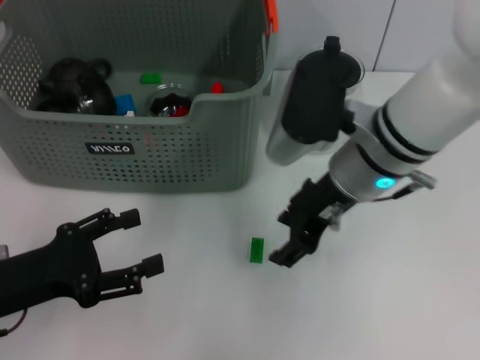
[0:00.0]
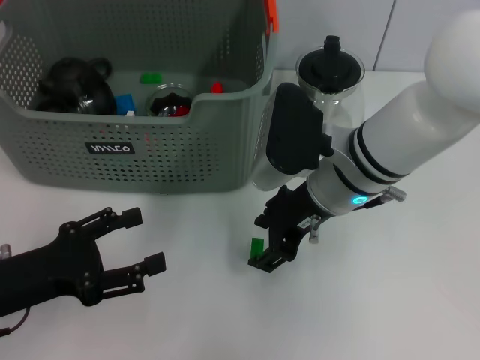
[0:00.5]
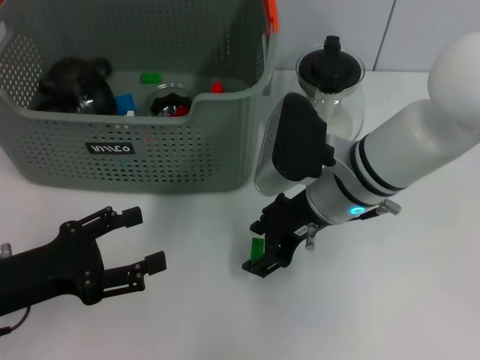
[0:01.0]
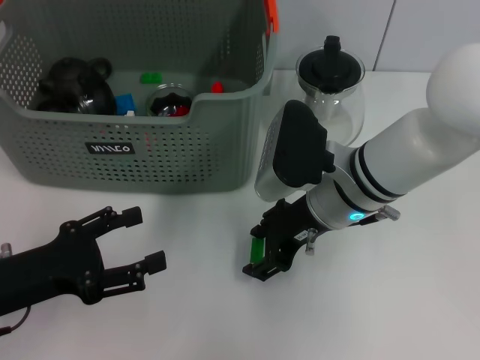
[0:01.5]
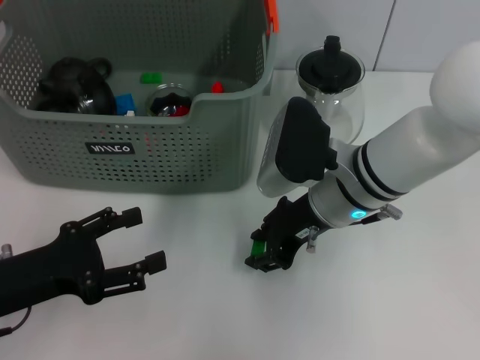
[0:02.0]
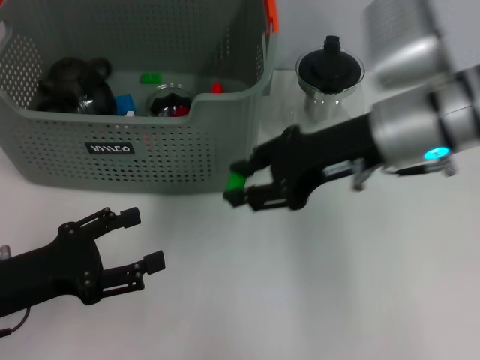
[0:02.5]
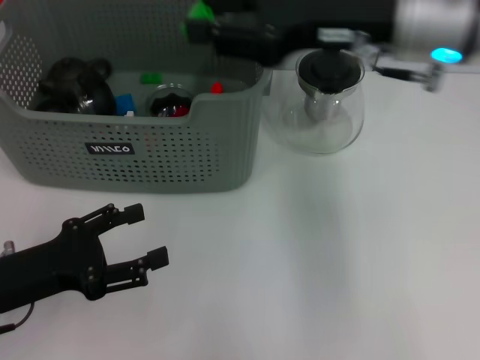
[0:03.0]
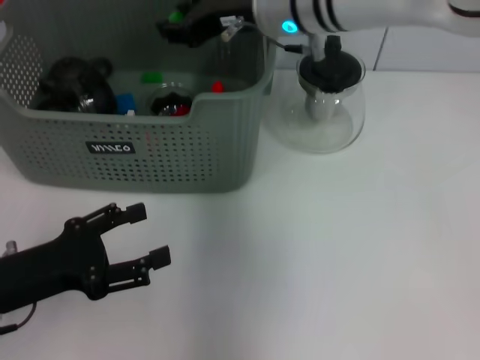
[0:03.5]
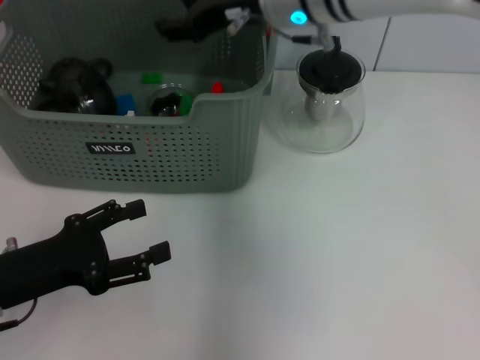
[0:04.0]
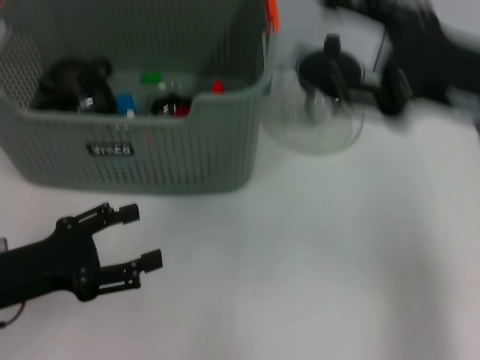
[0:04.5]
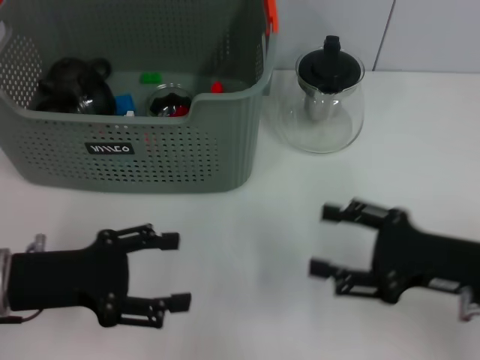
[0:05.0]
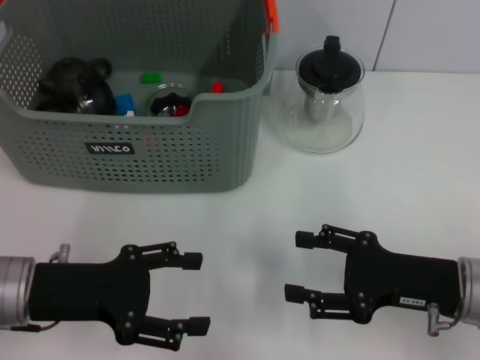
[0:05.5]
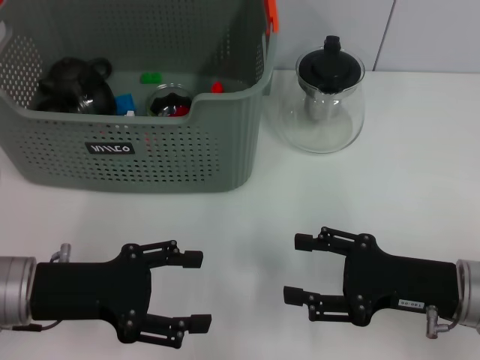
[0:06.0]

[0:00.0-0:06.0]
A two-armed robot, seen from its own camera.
Task of the whole recording: pick up the teacup on the table and place it into the storage bin, pick up the block on the table and place it into the storage bin.
Step, 0:02.5 to 0:04.0: Place the green block in the storage box with right gripper.
0:00.0 to 0:02.0: The right gripper heads downward, covering roughly 5 cm.
0:02.0 to 0:04.0: The right gripper moves upward and forward, some 15 cm.
0:04.0 to 0:06.0: The right gripper heads backward, to the right and downward, covering roughly 30 cm, and opens up.

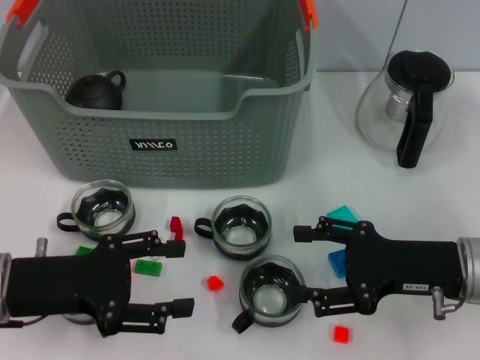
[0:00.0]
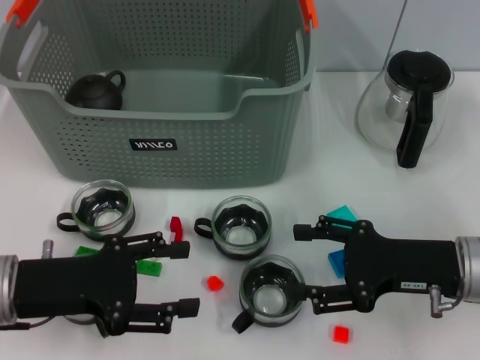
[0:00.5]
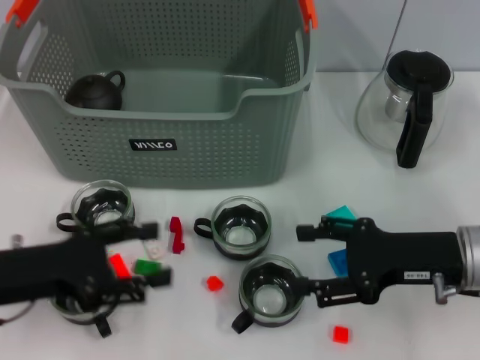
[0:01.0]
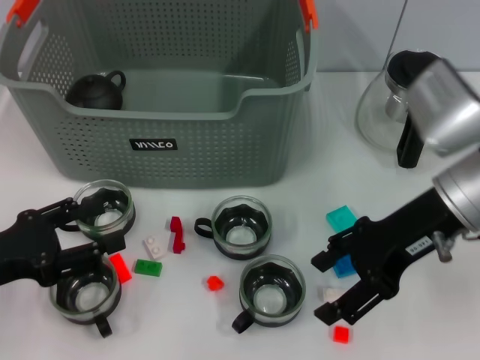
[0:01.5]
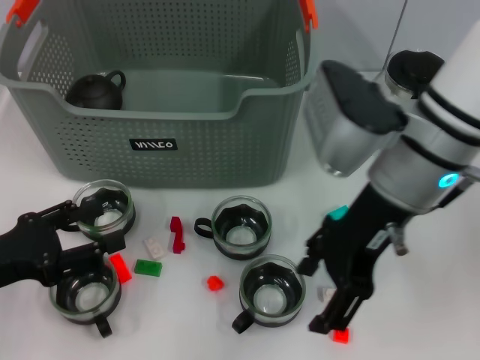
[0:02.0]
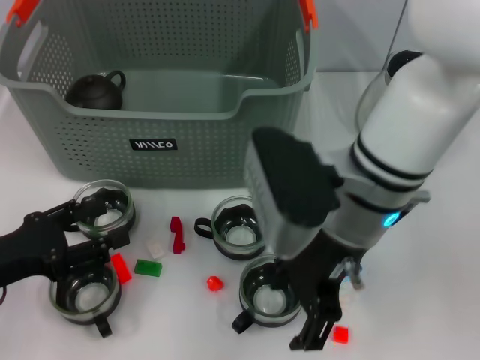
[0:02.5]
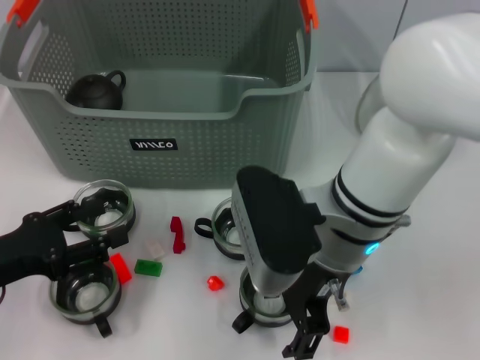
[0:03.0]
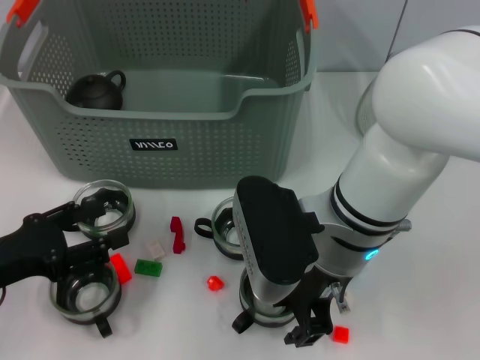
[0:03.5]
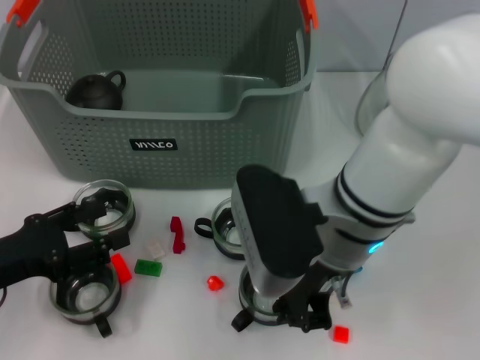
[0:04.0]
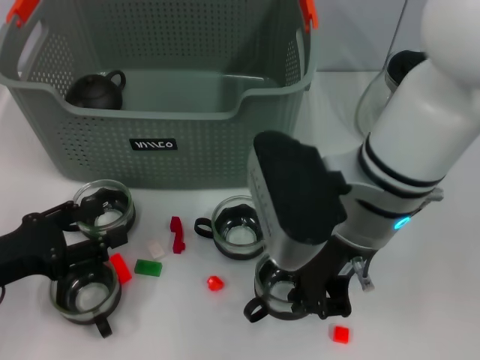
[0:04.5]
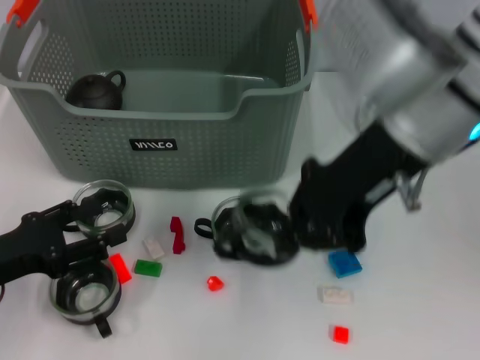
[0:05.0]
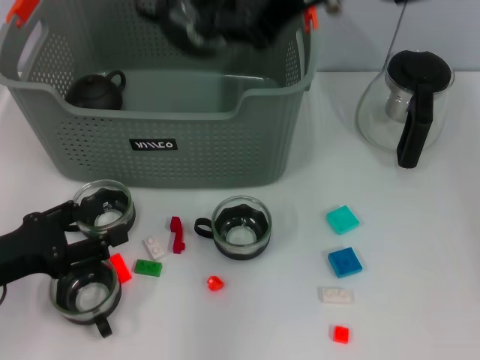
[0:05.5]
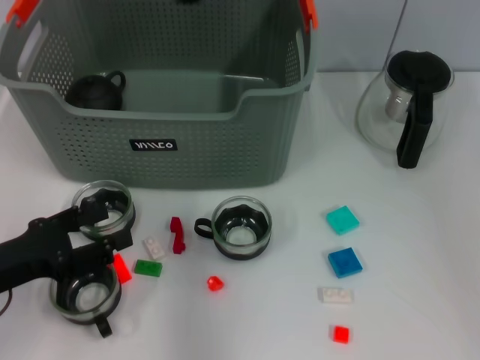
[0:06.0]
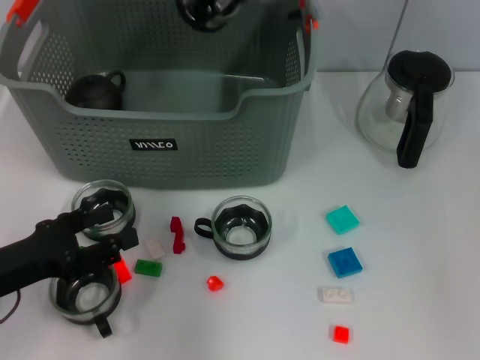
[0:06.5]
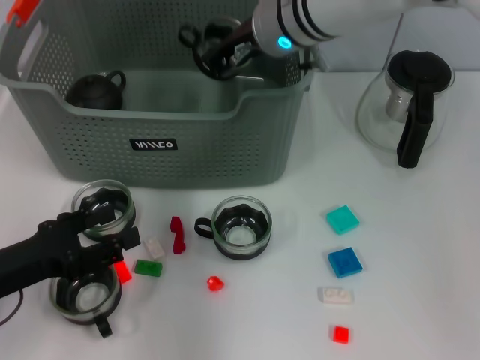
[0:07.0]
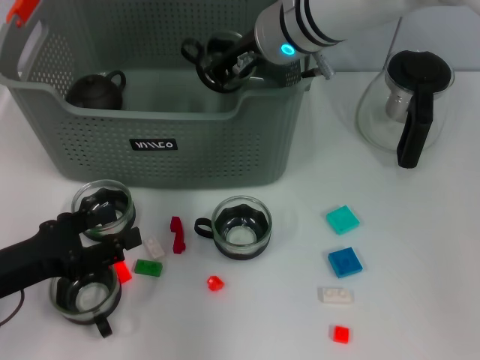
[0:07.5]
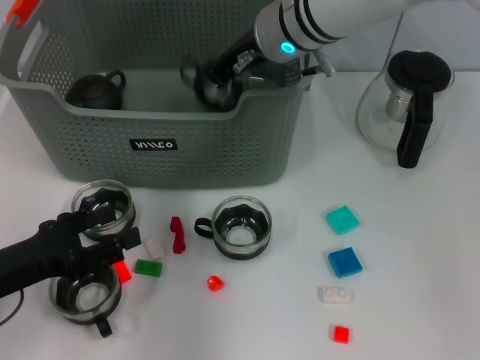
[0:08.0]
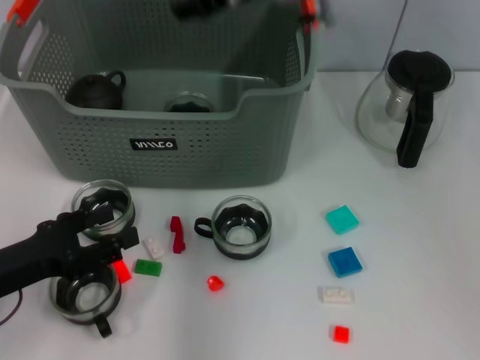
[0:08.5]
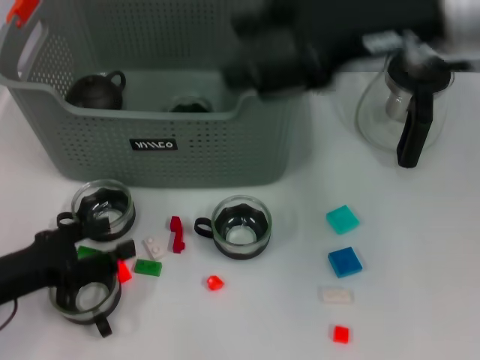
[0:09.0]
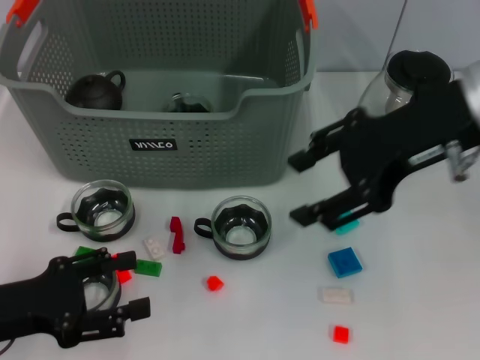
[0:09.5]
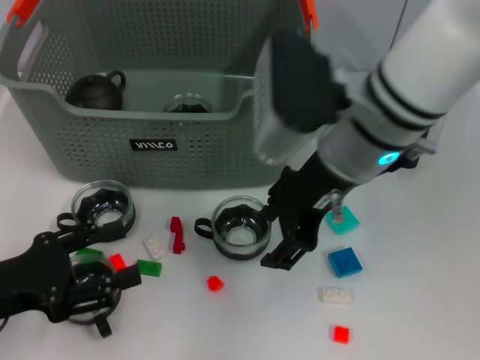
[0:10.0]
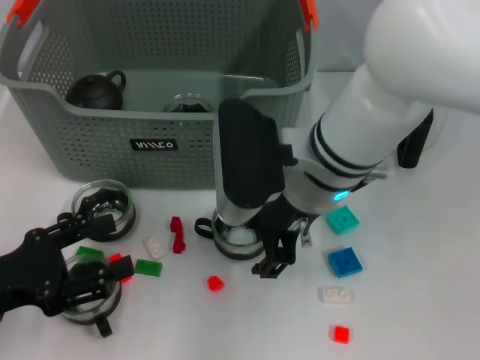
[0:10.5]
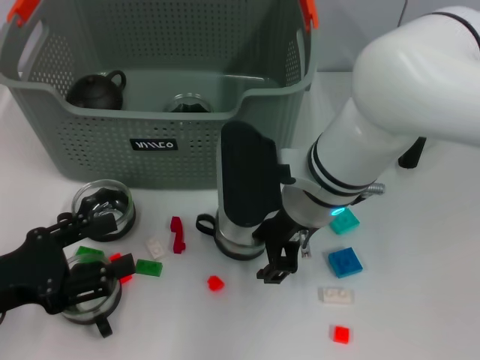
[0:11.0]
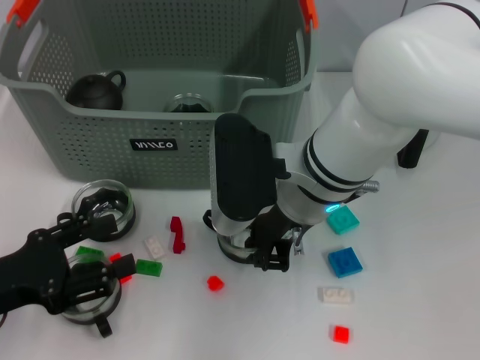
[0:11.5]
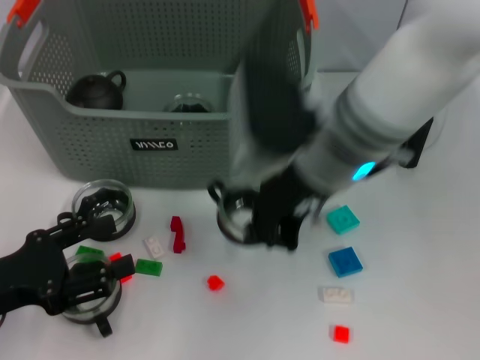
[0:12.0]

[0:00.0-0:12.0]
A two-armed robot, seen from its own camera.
Task of the whole recording: pick up the teacup on the table and place it into the storage bin, pick up the block on the table and place it into the storage bin.
Step, 0:00.0 to 0:03.5: Grasp the cup with right gripper.
Step, 0:04.0 to 0:08.0: Place the cup in the storage box with right gripper.
Step, 0:08.5 to 0:11.5: Grasp the cup with right gripper.
0:00.0 to 0:02.0: The left gripper shifts roughly 5 cm to the left; the right gripper goes about 20 cm upward, to the left and forward.
0:02.0 to 0:04.0: The right gripper moves to the left, roughly 5 cm, and closes up.
0:04.0 to 0:06.0: The right gripper travels upward and forward by some 20 cm.
0:06.0 to 0:08.0: The right gripper is displaced downward by about 10 cm.
0:08.0 to 0:10.0: The right gripper shifts roughly 10 cm backward, moves approximately 15 cm to the right and comes back, and opens.
0:10.0 to 0:12.0: The right gripper closes its fingers.

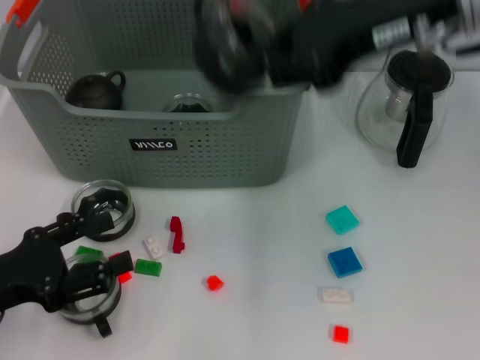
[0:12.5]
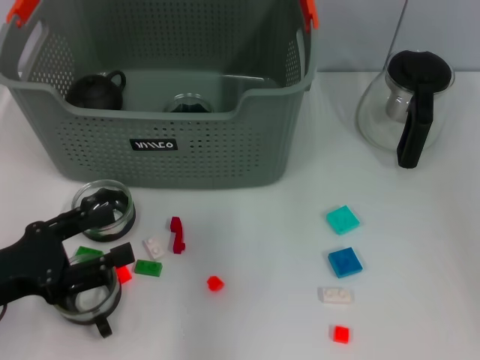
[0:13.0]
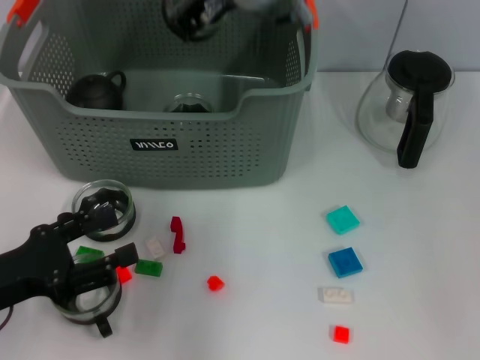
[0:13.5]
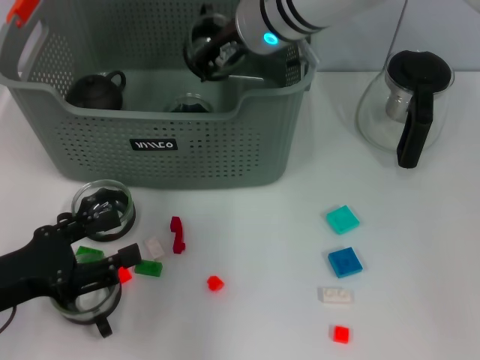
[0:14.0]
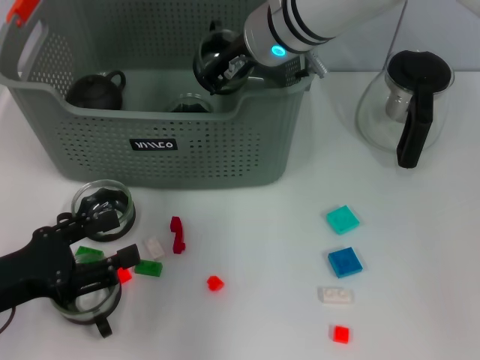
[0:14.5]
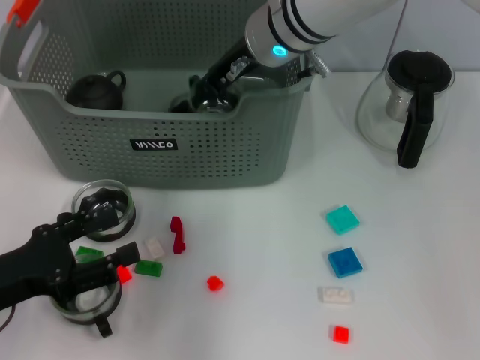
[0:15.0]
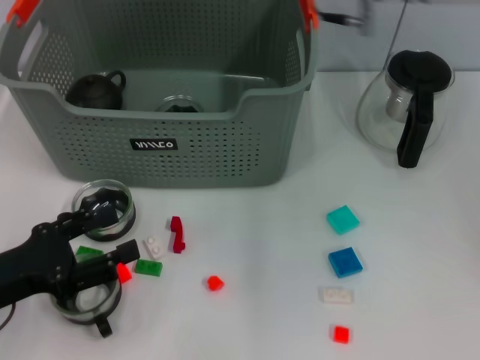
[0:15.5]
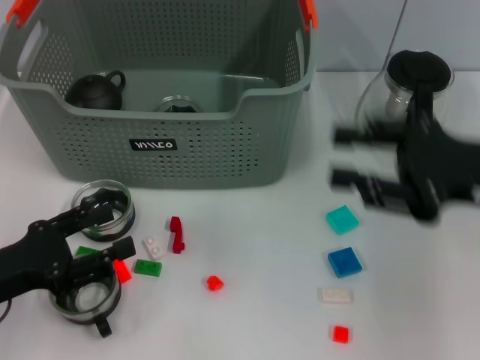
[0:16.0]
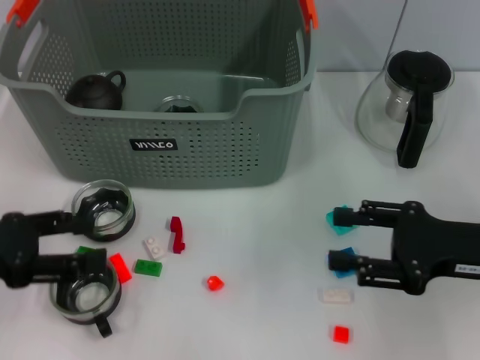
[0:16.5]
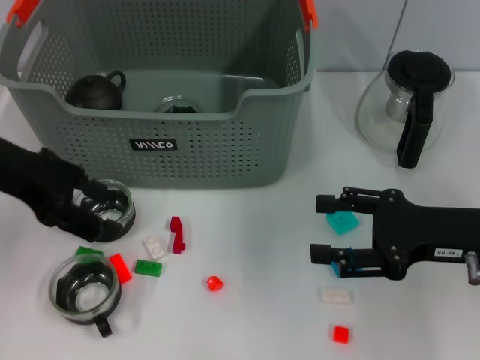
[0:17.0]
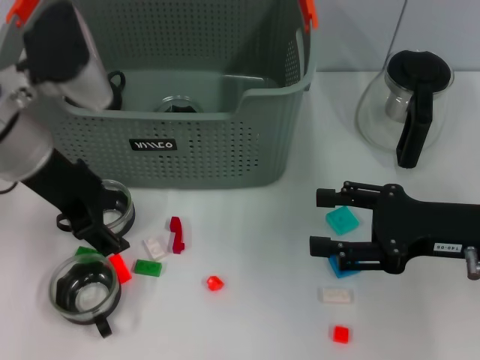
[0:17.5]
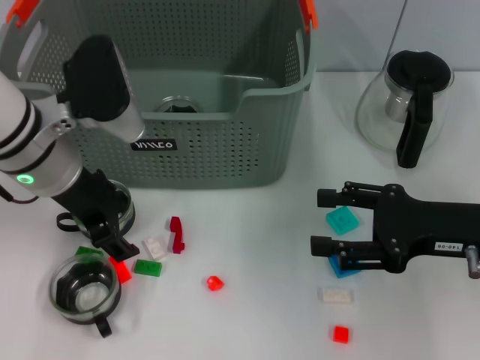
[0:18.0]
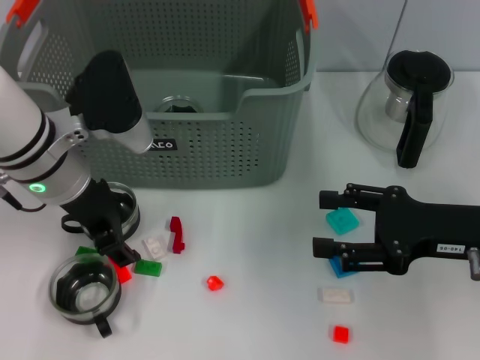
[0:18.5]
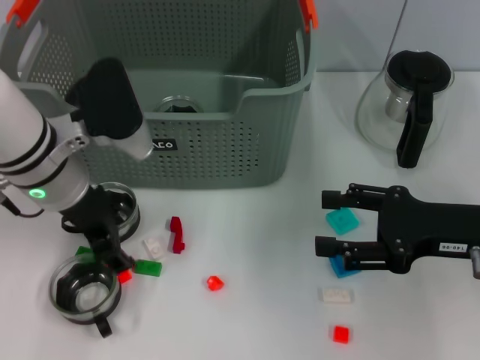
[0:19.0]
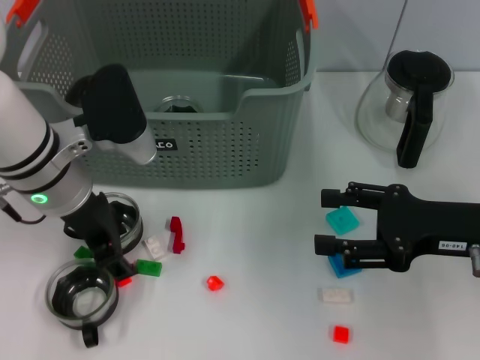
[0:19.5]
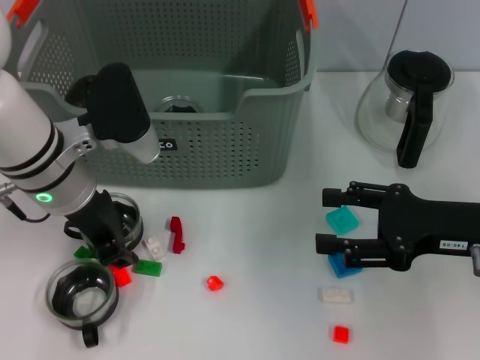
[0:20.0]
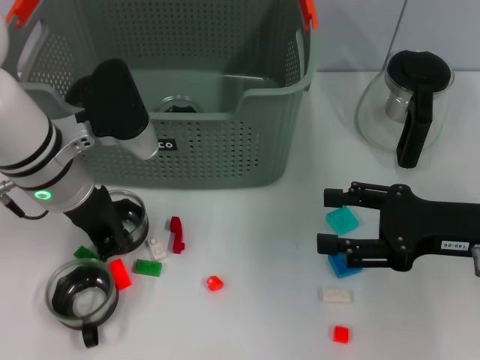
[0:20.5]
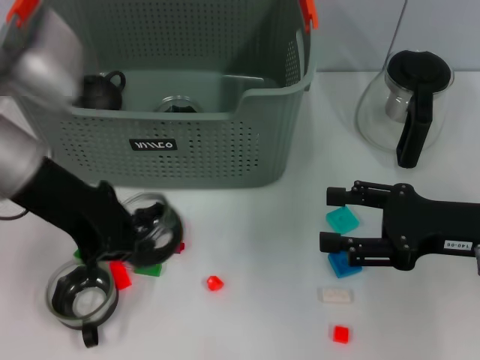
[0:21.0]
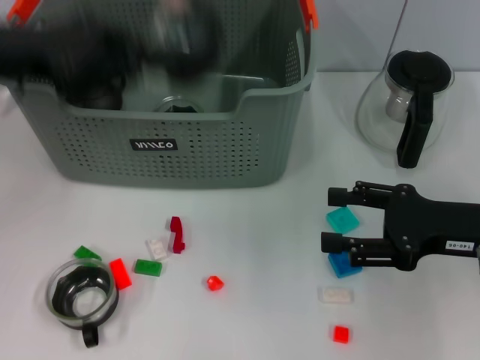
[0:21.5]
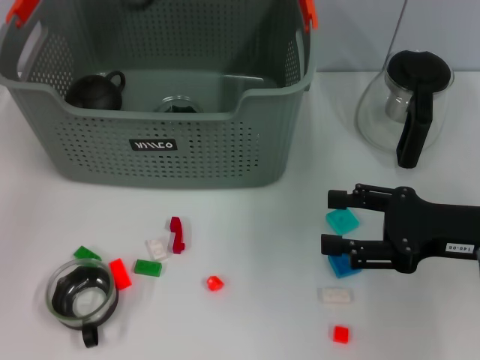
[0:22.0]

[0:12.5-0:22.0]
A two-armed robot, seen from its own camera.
Task of the whole recording: pick up the teacup on the table and place it into the storage bin, pick up the block on the table and place it into the storage bin.
Step, 0:12.5 to 0:15.0: Place the cup in the storage box with right gripper.
Step, 0:15.5 to 0:20.0: Grasp the cup with left gripper.
0:12.5 to 0:14.5: The right gripper moves to the left, downward and forward, approximately 20 cm.
0:14.5 to 0:16.5: The left gripper shifts some 5 cm upward; the right gripper heads to the right, backward and downward, covering about 30 cm, and opens up.
0:16.5 to 0:18.0: The left gripper moves to the right and forward, roughly 20 cm.
0:18.0 to 0:20.0: The grippers make only small movements.
0:20.0 to 0:22.0: The left gripper goes about 20 cm upward, forward and to the left, and closes.
